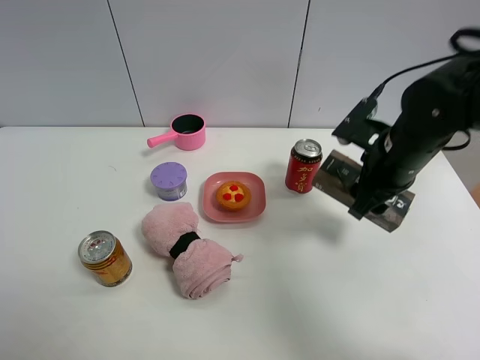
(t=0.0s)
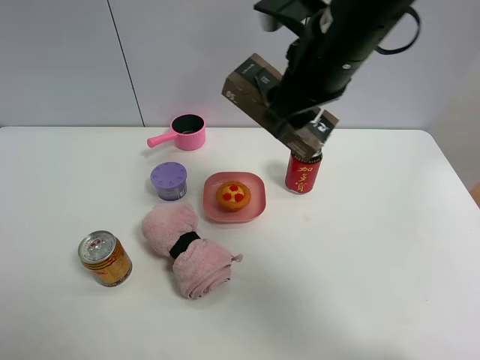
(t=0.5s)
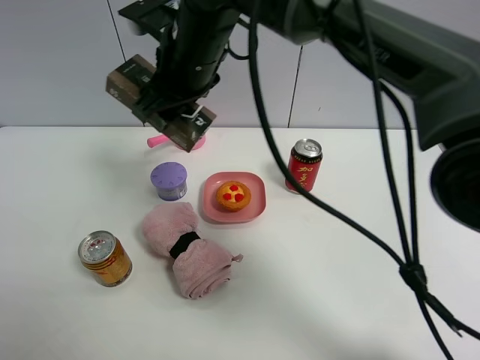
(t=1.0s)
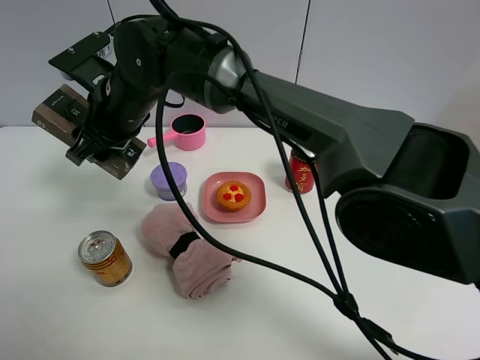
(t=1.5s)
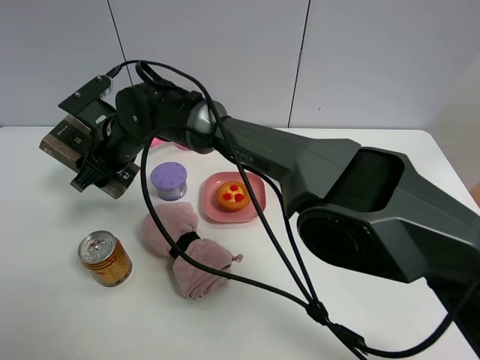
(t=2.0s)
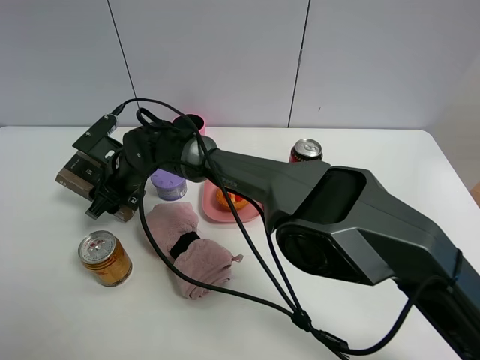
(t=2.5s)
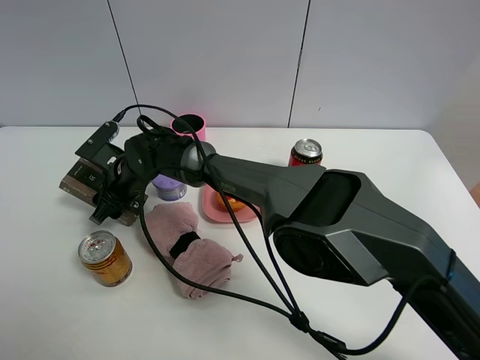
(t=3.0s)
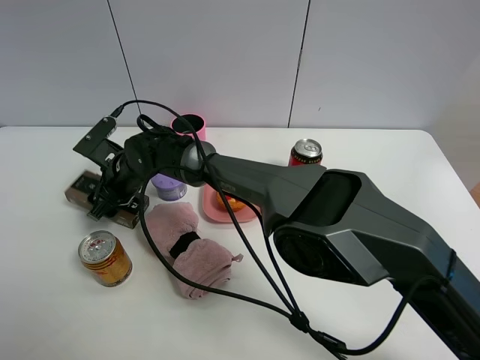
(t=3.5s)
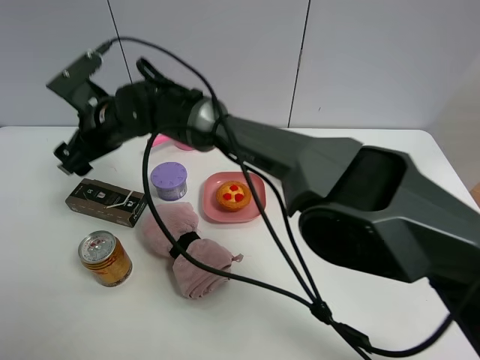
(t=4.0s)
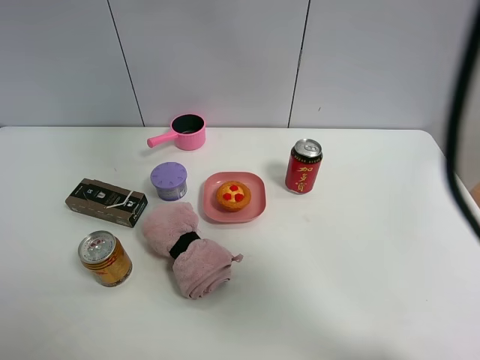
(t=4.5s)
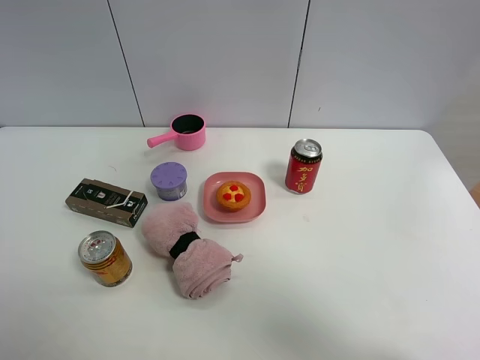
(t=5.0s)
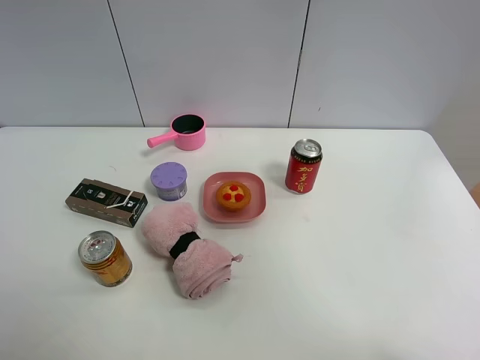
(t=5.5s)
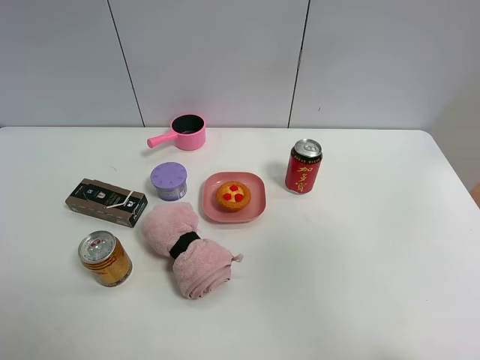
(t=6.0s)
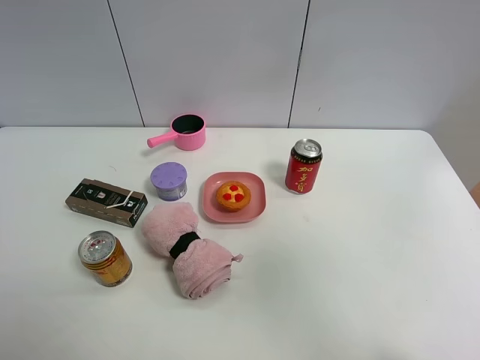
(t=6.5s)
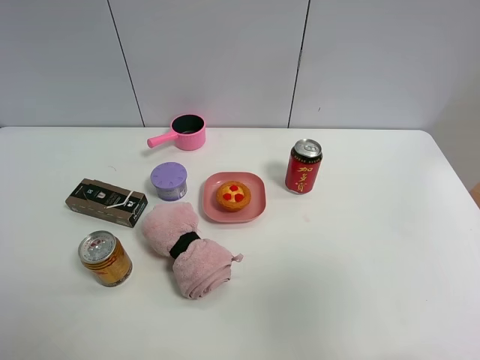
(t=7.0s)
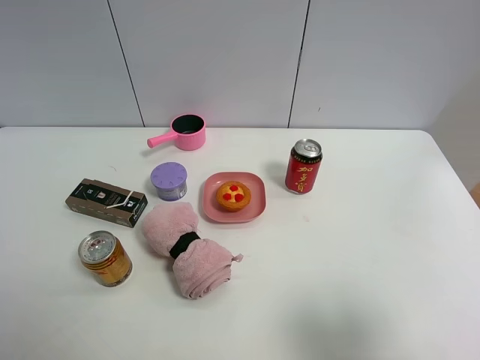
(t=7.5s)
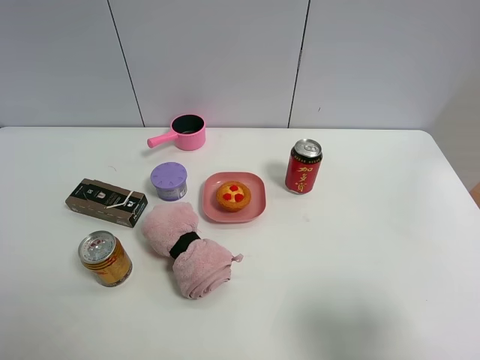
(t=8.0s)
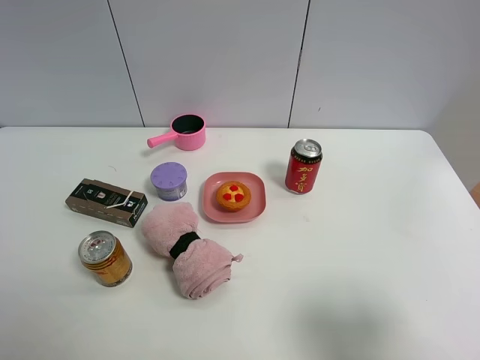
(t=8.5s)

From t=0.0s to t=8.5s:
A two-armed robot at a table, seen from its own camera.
Task of the whole recording: the gripper move the object.
Step, from t=0.0s to t=3.5s: Place the black box on the table with the right gripper.
From t=0.0s to t=2.0s: The right gripper is displaced to the left by about 35 cm.
From t=2.0s to t=4.0s: The right gripper opens.
From t=4.0s to t=6.5s: The right gripper goes some 60 cm to the right, backward and upward.
From t=6.5s to t=8.5s: The right gripper goes about 20 cm downward.

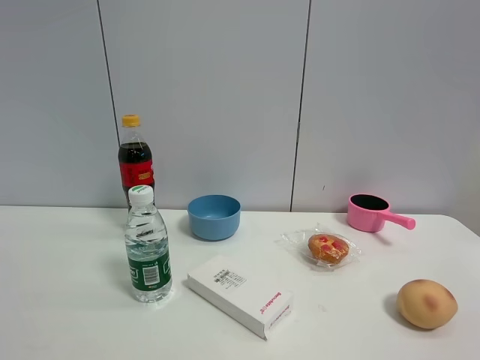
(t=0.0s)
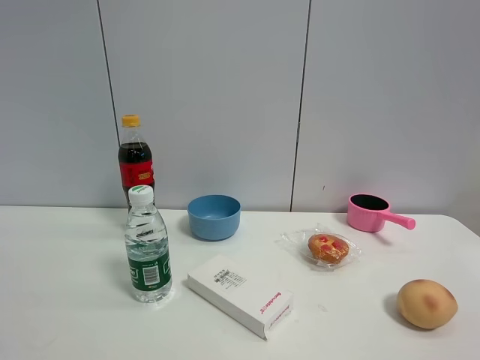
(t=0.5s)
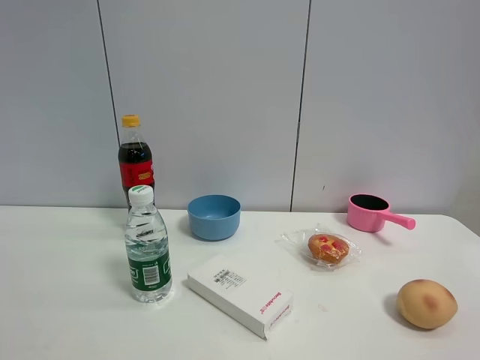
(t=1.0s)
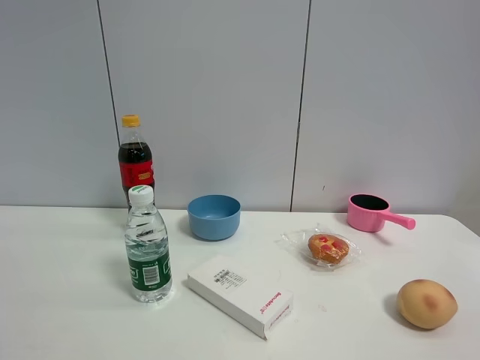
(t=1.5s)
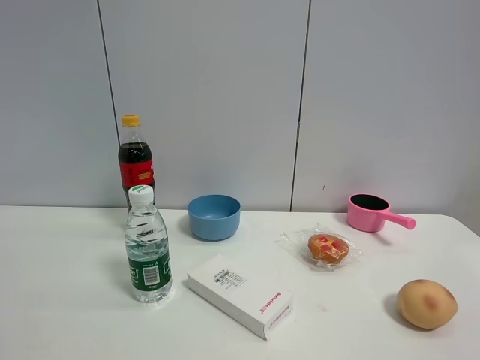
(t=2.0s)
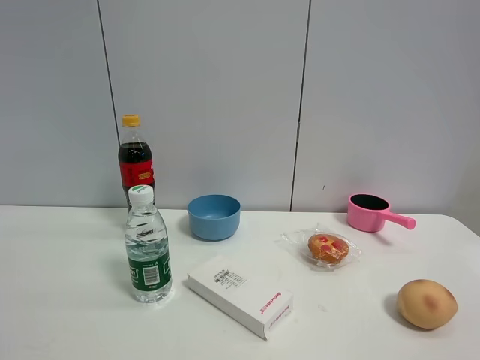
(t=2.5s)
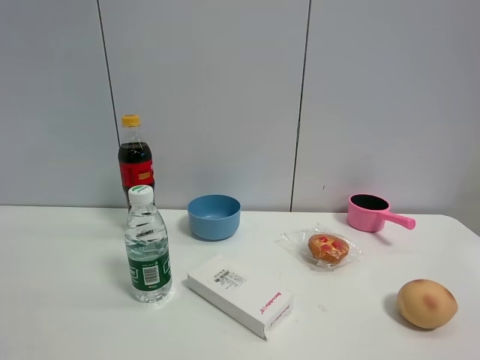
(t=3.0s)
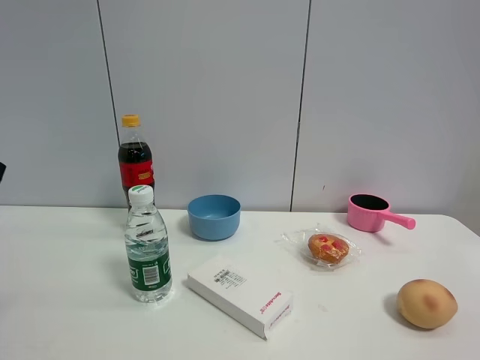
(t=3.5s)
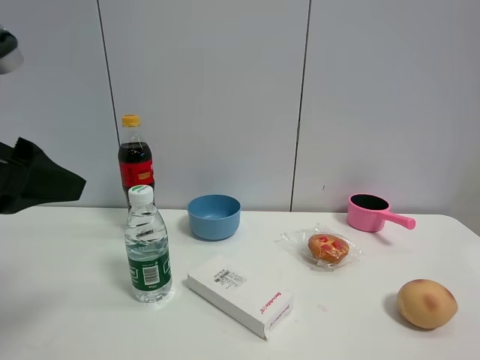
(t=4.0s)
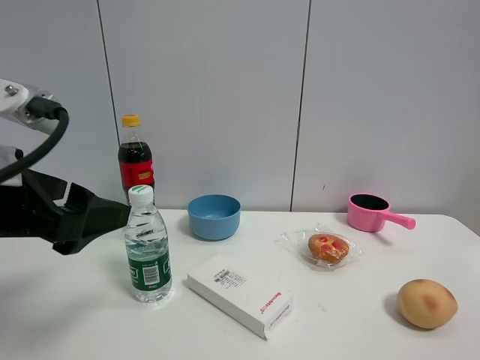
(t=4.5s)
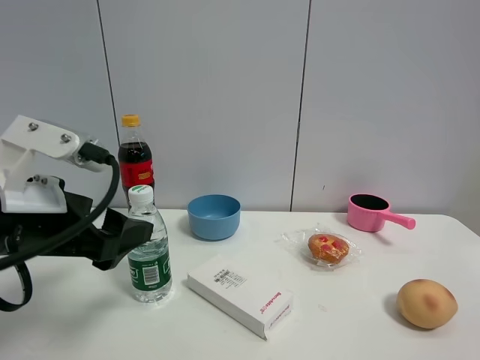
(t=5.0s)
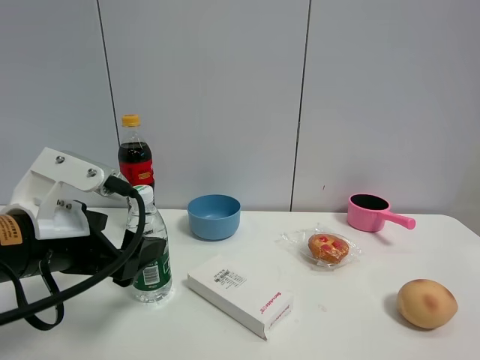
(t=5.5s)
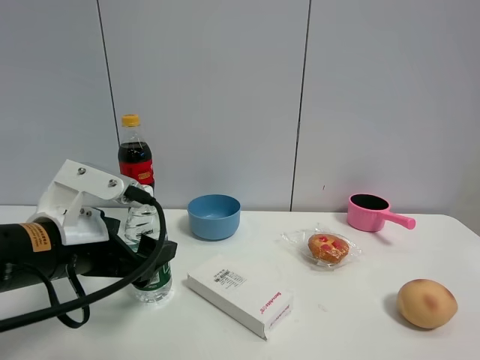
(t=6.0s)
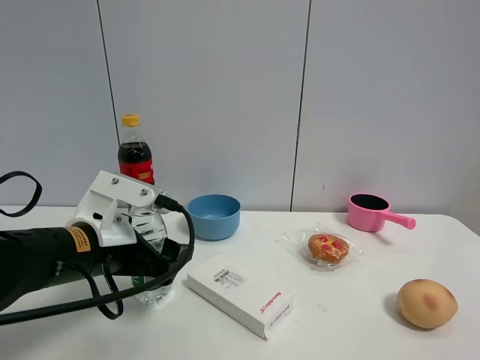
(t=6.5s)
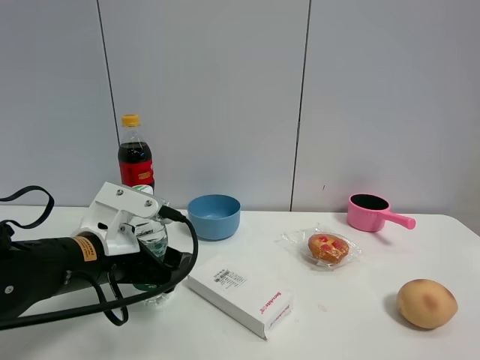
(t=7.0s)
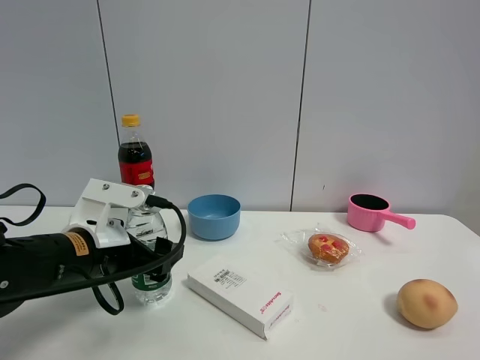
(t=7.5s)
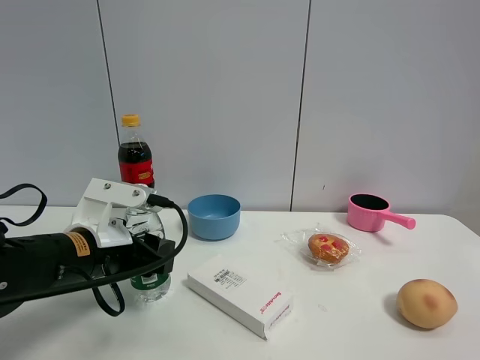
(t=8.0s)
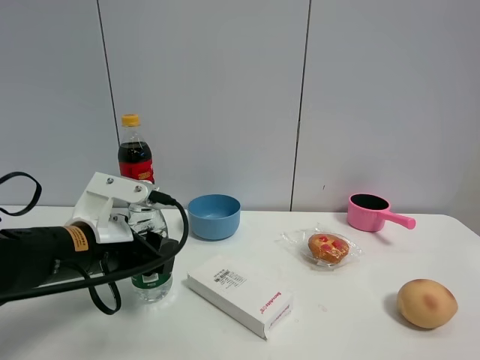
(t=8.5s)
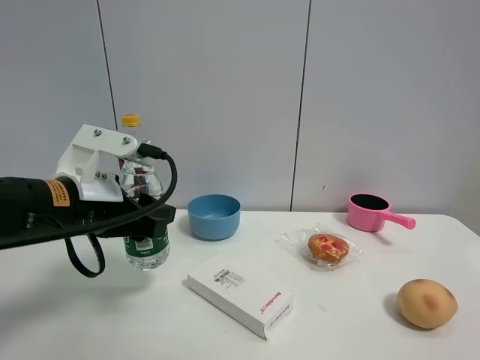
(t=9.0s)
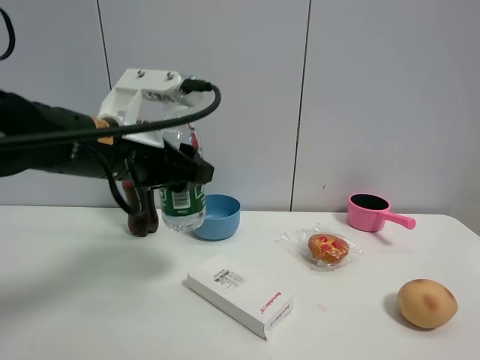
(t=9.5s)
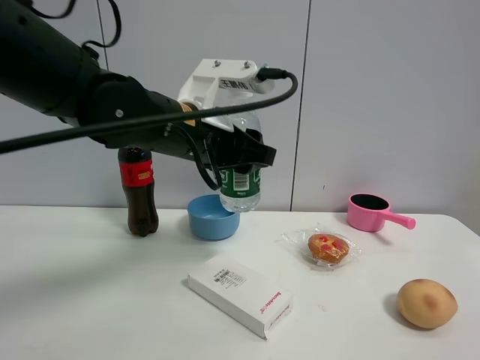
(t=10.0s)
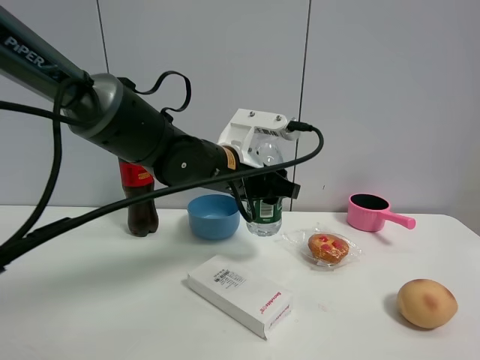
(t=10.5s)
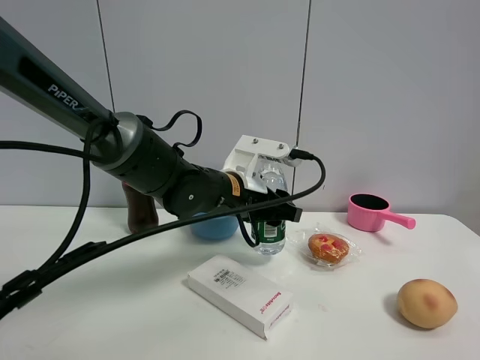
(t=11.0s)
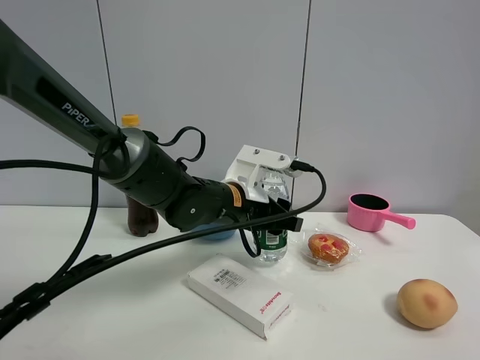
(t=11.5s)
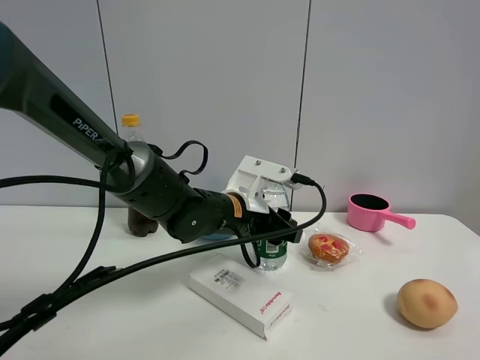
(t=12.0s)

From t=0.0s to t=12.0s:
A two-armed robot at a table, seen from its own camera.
Task of the whole recording: the gripper move the object.
Step, from t=0.0s to t=8.0s: Grasp the YiBao mineral water with the left gripper.
From t=2.0s to t=4.0s: The left gripper travels forward and to the right by about 15 cm.
From t=4.0s to t=6.0s: The left gripper is displaced downward and forward by approximately 15 cm.
From t=6.0s to t=8.0s: The left gripper shifts by roughly 5 cm, and closes.
From t=8.0s to t=10.0s: The left gripper is displaced upward and to the right by approximately 20 cm.
From t=10.0s to t=12.0s: The left gripper shifts some 15 cm downward.

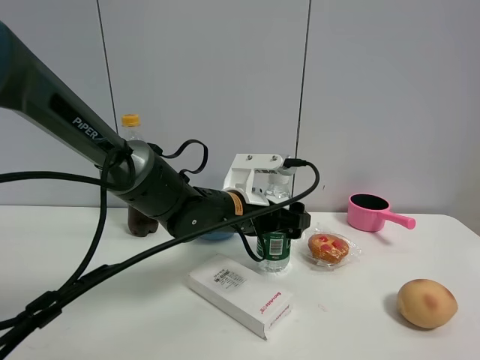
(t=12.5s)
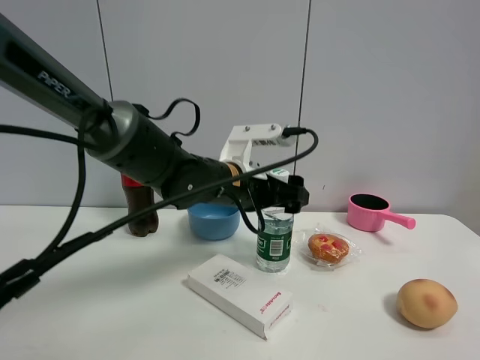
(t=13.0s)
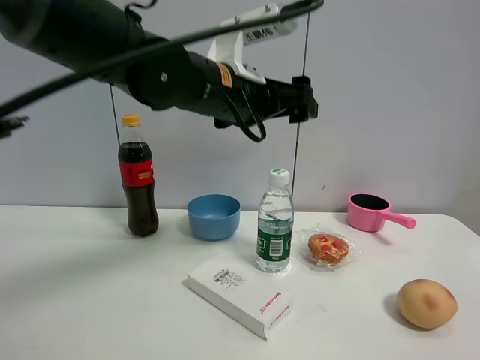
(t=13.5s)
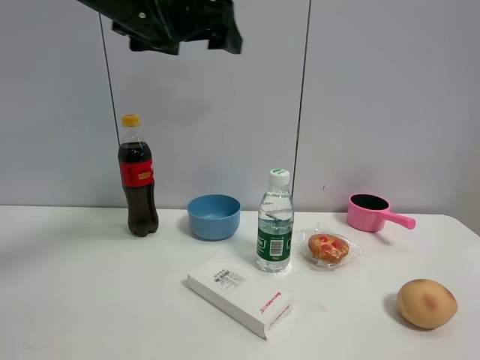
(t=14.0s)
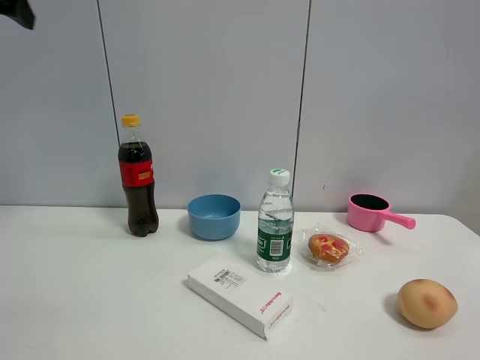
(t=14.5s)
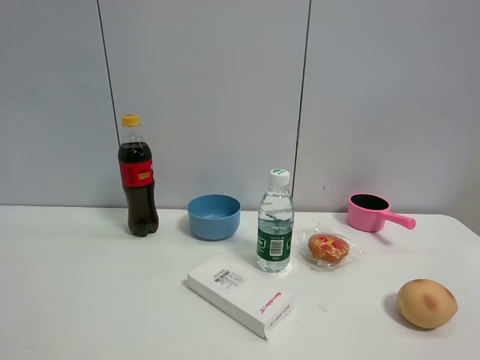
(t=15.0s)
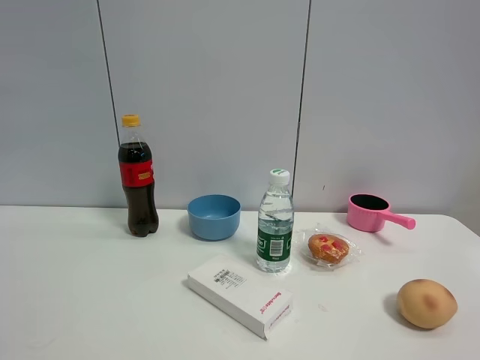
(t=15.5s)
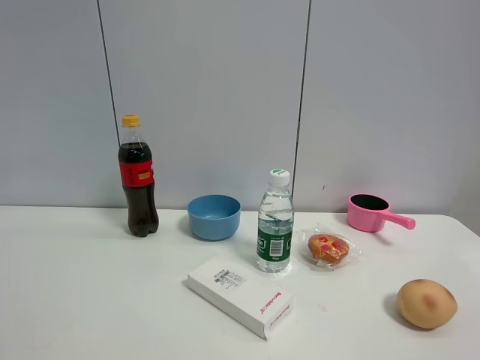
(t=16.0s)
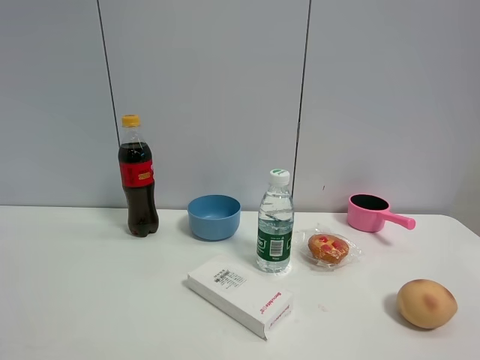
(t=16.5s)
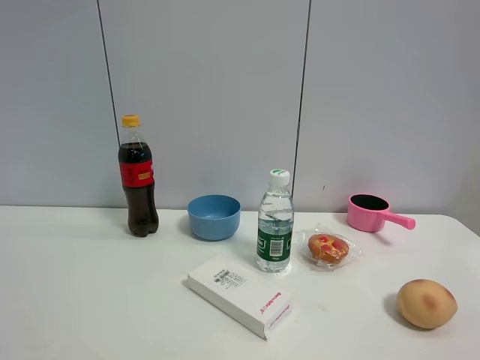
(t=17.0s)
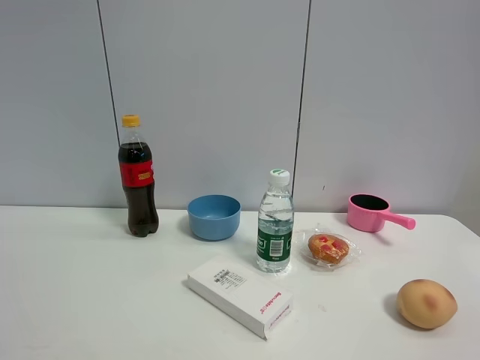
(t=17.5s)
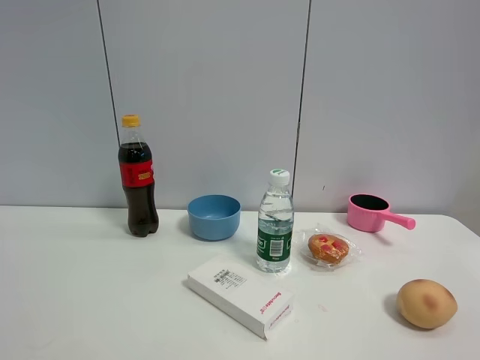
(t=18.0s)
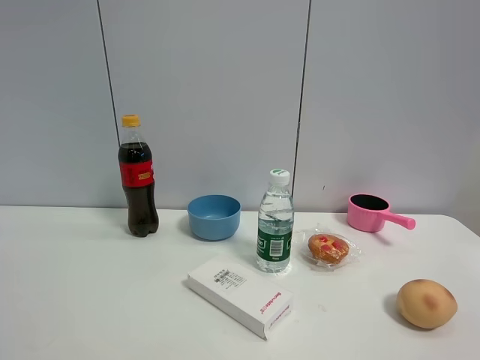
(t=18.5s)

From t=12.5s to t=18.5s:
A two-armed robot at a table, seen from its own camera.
Task of the whole recording: the gripper move the object.
From t=12.5s to t=14.5s: The left gripper heads upward and to the left, covering roughly 40 cm.
From t=16.5s to t=18.5s: The two grippers keep their place.
